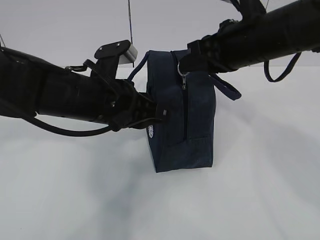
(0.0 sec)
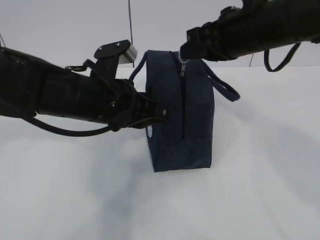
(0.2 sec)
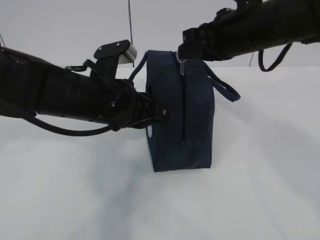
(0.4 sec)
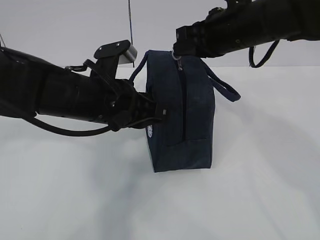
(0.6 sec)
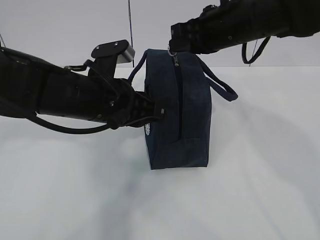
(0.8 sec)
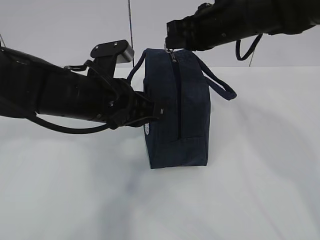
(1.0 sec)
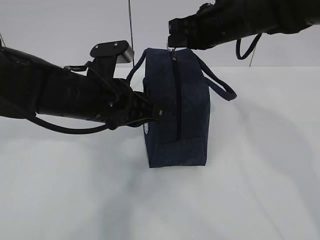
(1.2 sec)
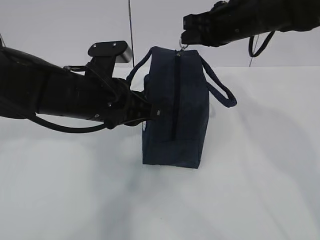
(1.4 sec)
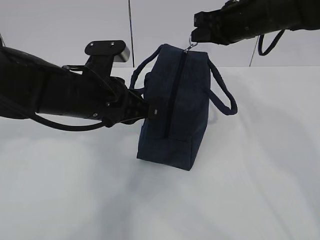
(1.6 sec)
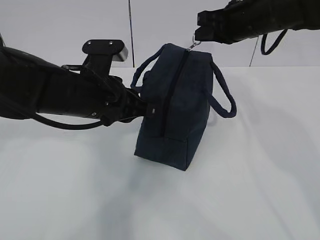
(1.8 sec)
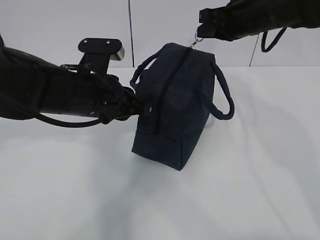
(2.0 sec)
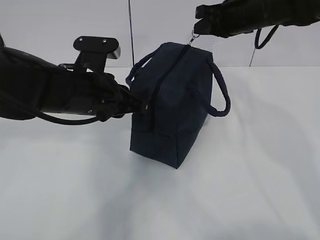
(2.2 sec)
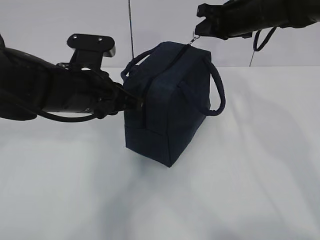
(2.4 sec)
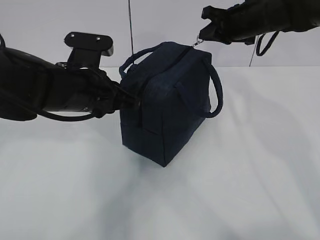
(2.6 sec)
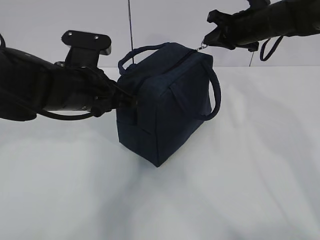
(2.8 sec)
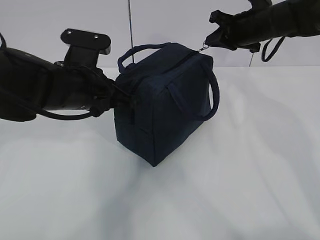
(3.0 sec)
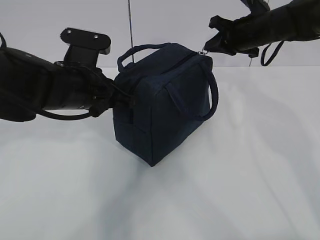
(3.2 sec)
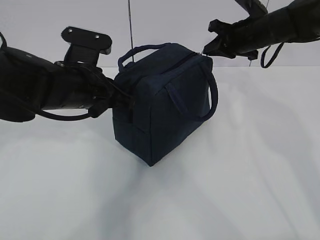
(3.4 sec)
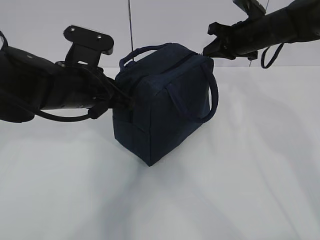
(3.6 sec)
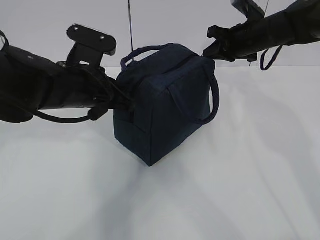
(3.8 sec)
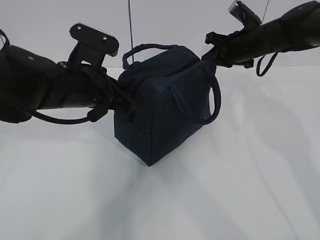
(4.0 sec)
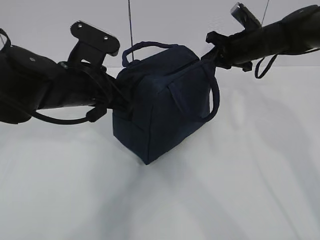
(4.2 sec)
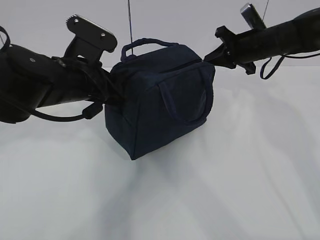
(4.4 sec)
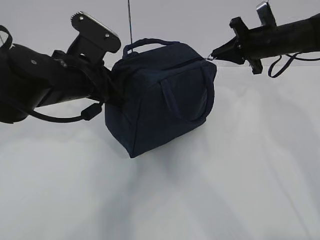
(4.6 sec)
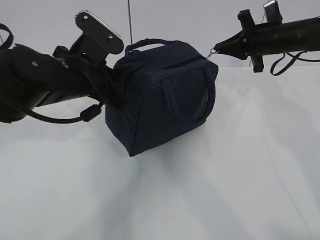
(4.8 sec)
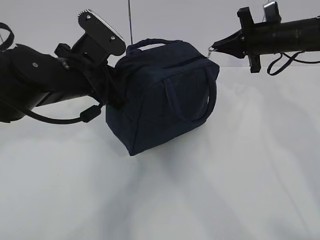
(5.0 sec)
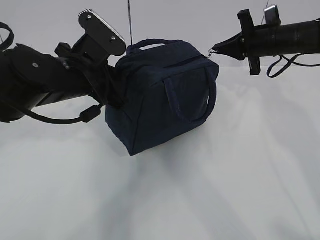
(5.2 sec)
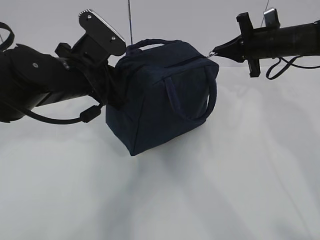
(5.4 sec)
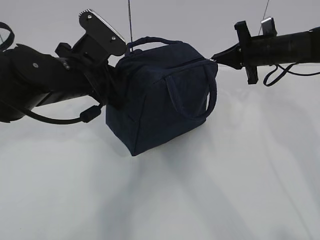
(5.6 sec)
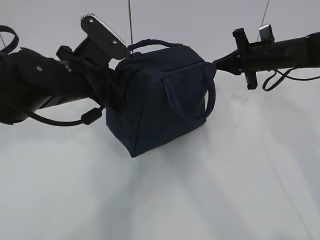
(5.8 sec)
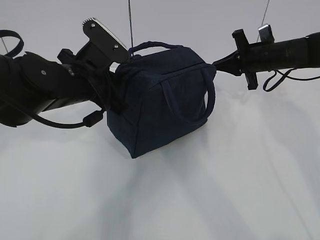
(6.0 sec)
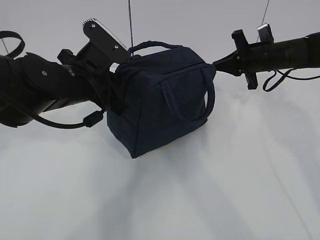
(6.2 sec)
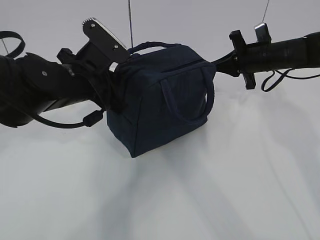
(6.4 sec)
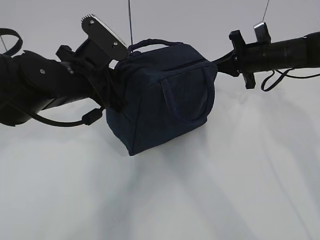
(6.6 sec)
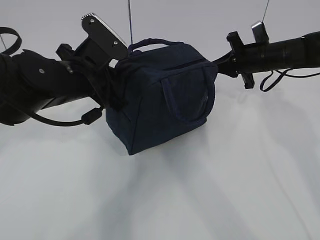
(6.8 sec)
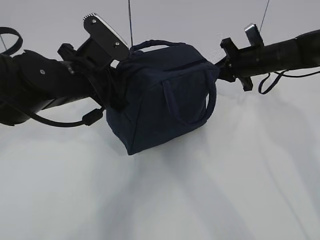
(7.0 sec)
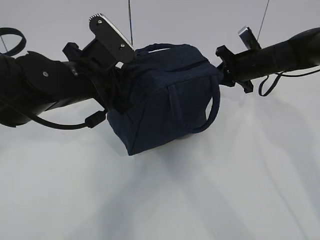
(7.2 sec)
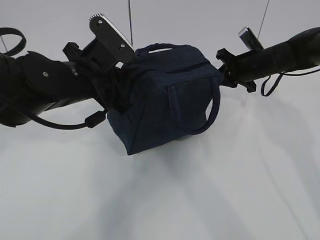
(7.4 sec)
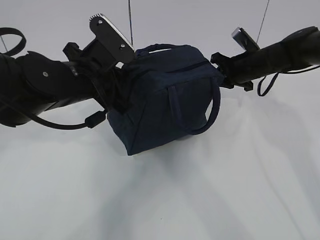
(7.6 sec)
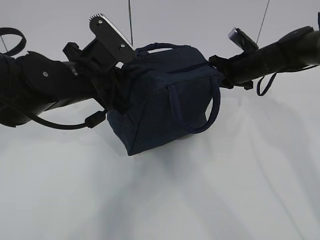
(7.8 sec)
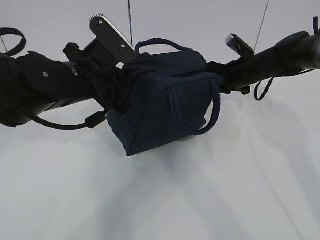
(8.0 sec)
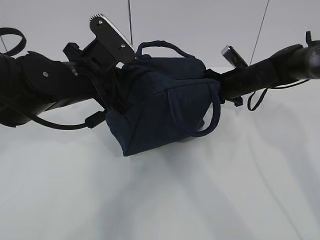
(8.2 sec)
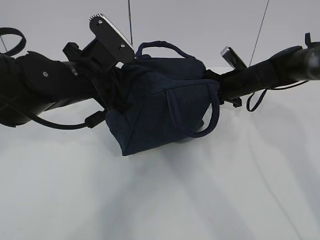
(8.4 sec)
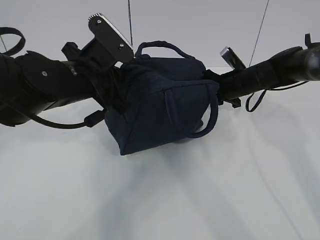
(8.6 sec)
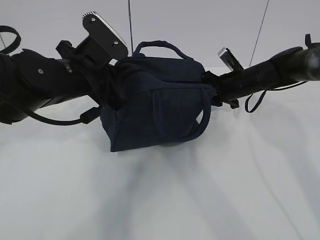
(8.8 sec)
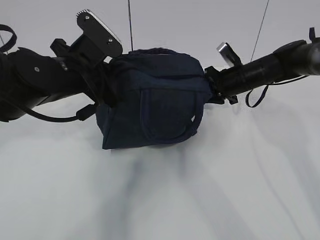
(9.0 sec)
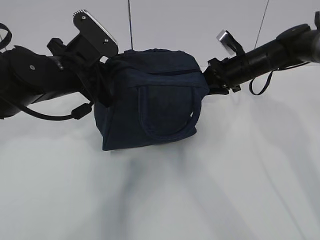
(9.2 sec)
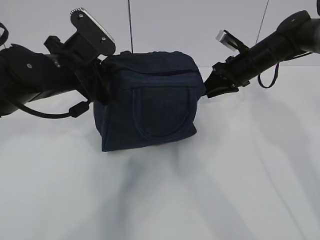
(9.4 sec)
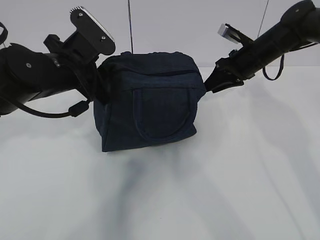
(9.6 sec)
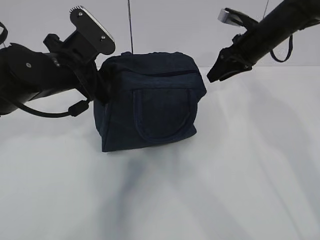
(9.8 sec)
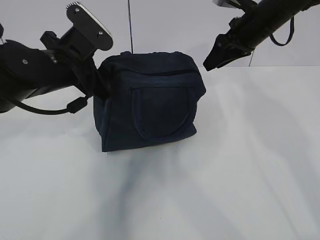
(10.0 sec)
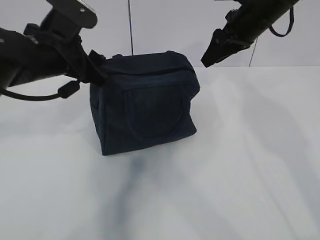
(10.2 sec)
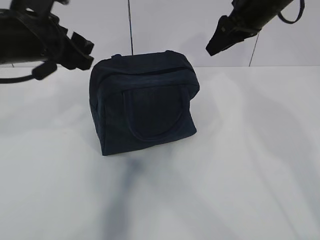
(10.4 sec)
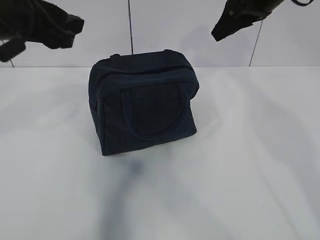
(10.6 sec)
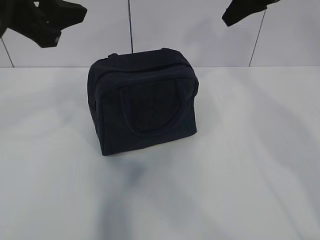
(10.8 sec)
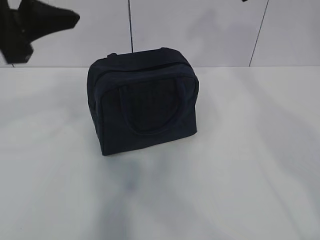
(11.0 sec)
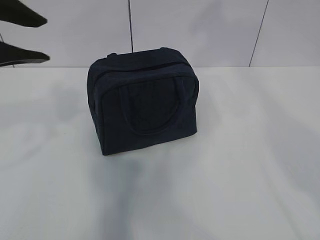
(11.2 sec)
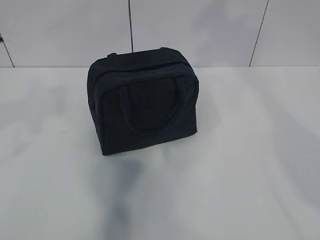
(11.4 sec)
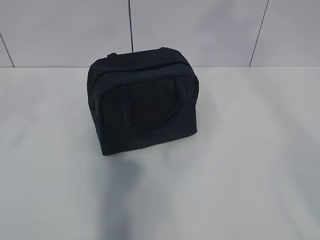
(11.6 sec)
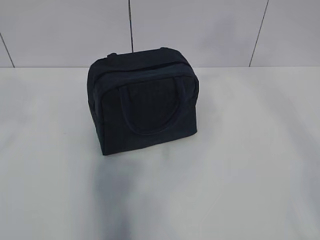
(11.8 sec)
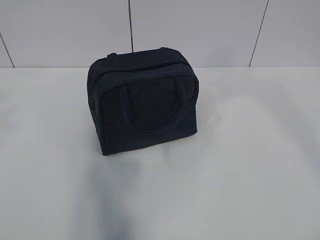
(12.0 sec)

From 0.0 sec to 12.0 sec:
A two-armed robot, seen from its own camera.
From 0.0 sec to 1.6 sec: The right gripper heads forward, covering about 10 cm.
From 1.6 sec to 3.0 sec: The right gripper moves forward, roughly 5 cm.
From 3.0 sec to 4.4 sec: The grippers make only small movements.
From 7.6 sec to 9.0 sec: The right gripper opens.
From 9.0 sec to 10.4 sec: The left gripper travels upward by roughly 5 cm, and opens up, while the right gripper heads upward, covering approximately 20 cm.
From 10.4 sec to 12.0 sec: The right gripper moves backward and upward, roughly 35 cm. The left gripper heads backward, upward and to the left, covering some 25 cm.

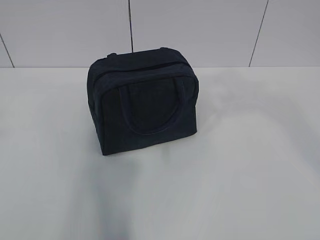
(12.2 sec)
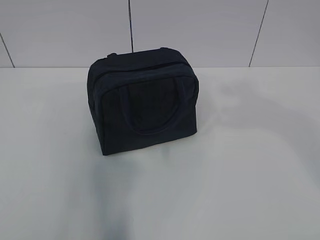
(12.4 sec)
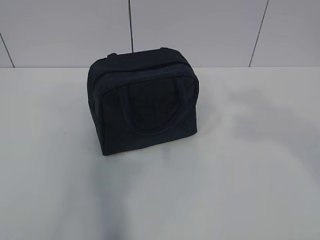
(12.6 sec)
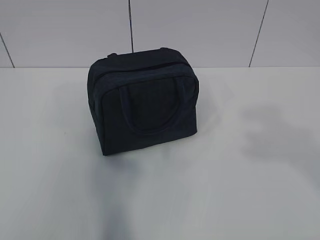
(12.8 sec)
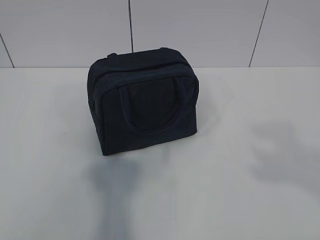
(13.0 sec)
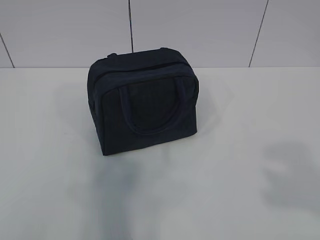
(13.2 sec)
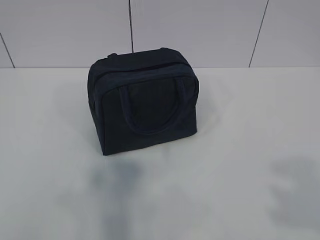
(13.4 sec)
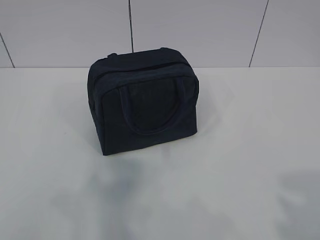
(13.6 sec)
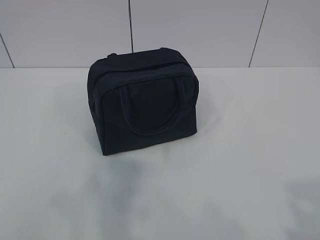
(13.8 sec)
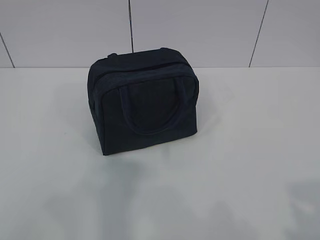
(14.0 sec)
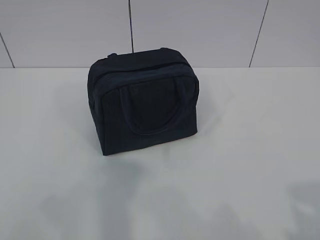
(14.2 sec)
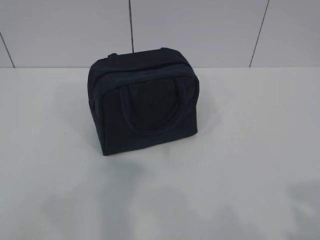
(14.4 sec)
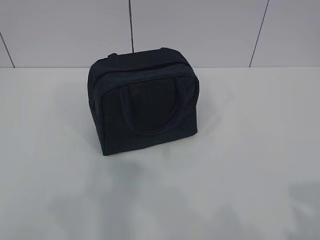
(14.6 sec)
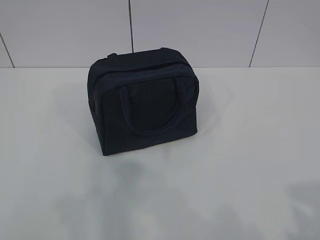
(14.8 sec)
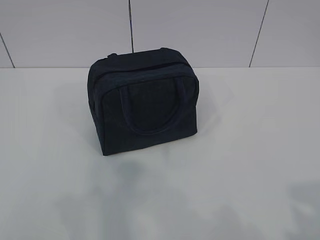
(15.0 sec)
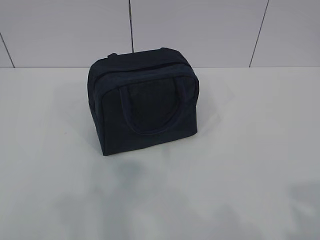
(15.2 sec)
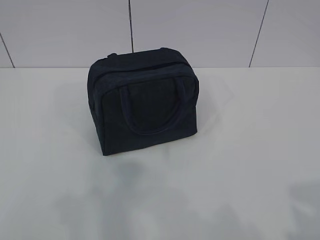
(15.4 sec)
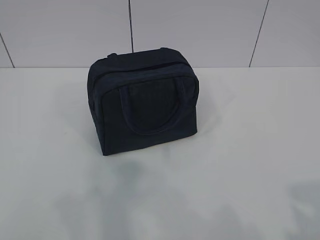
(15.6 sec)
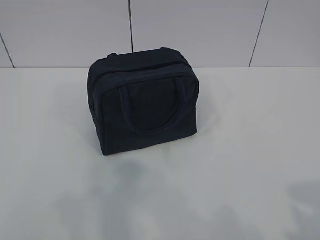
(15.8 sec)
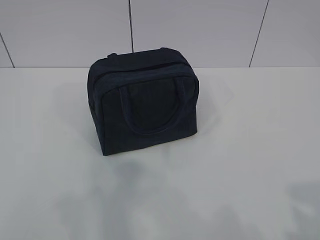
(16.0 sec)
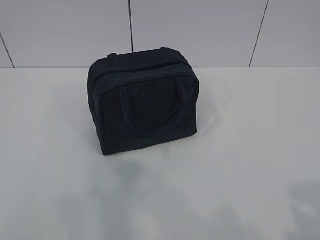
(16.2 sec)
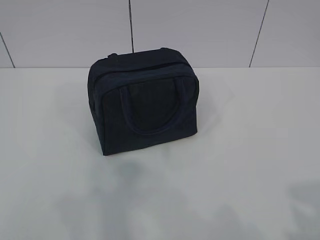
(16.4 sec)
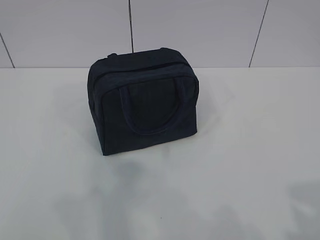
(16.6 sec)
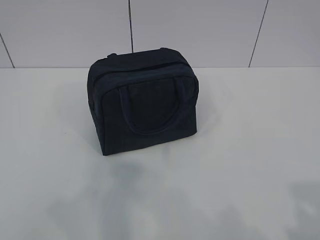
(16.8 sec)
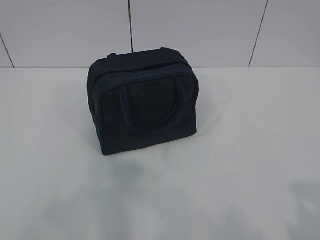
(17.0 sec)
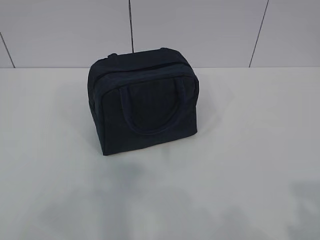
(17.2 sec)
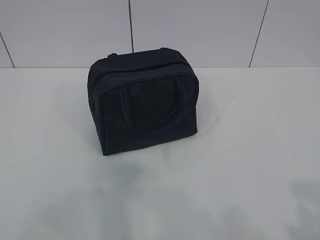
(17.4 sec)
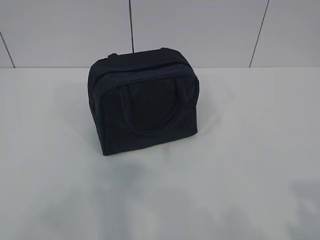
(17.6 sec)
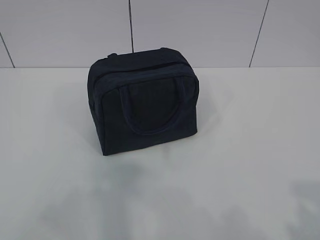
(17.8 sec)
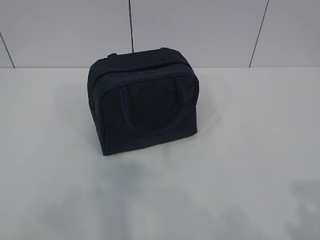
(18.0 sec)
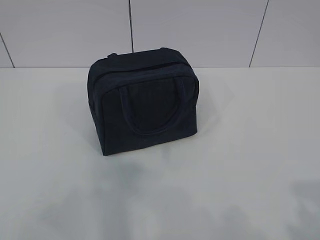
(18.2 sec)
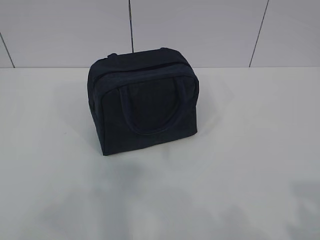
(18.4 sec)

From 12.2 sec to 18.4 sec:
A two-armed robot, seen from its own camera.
From 12.2 sec to 13.8 sec: The right gripper heads downward and backward, covering roughly 25 cm.
